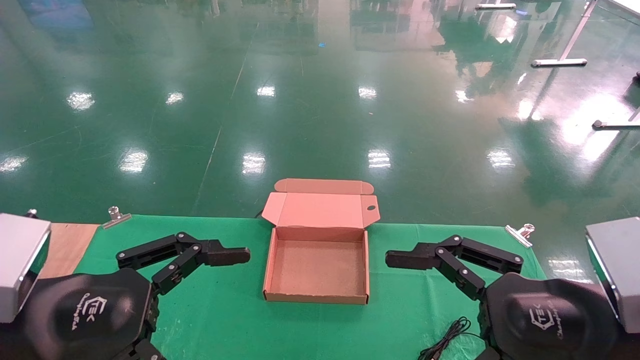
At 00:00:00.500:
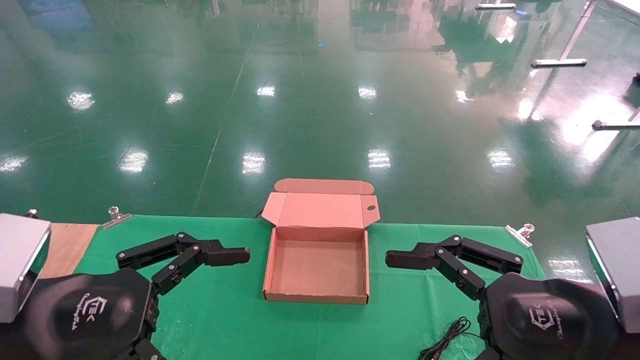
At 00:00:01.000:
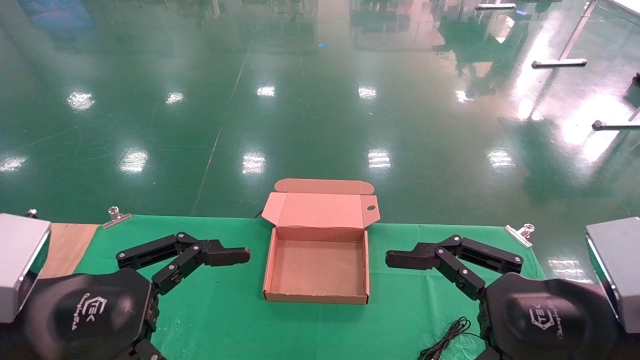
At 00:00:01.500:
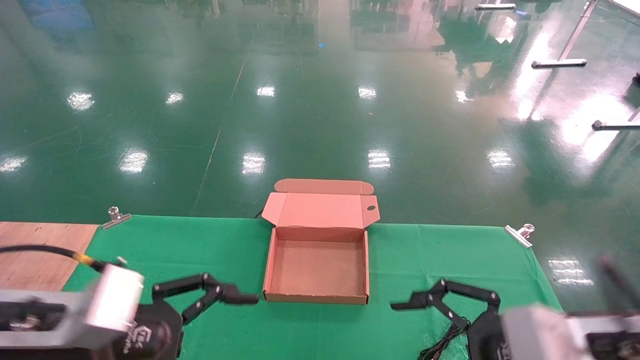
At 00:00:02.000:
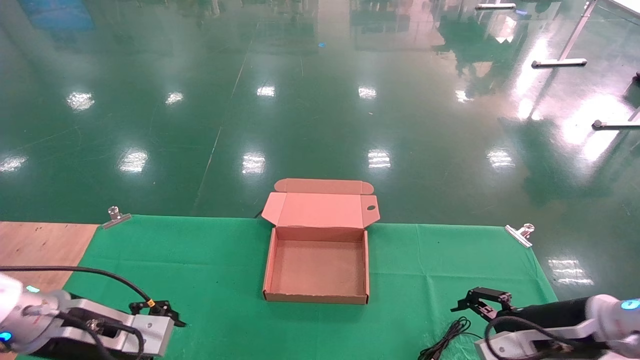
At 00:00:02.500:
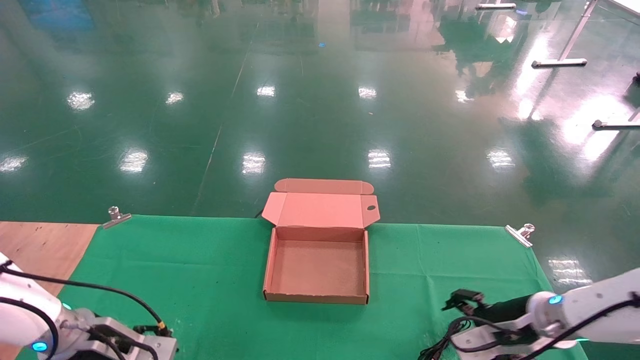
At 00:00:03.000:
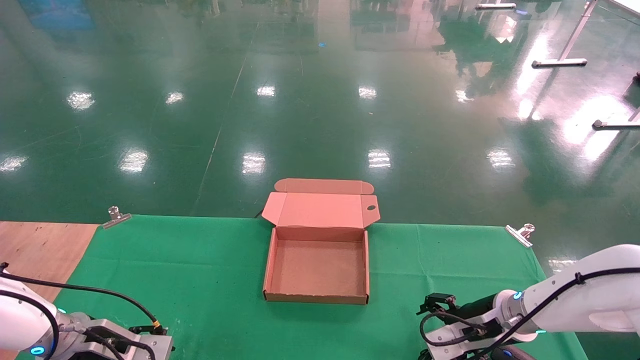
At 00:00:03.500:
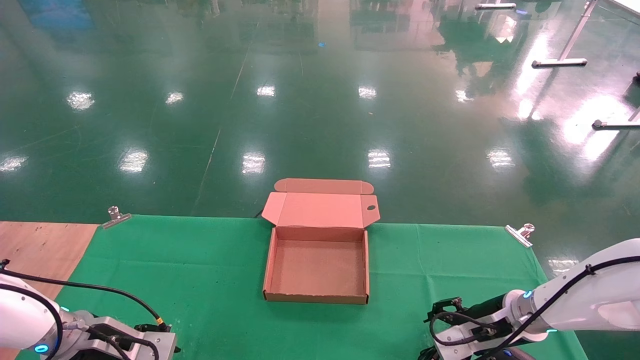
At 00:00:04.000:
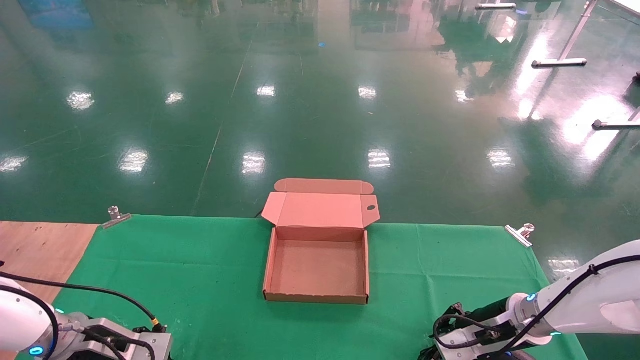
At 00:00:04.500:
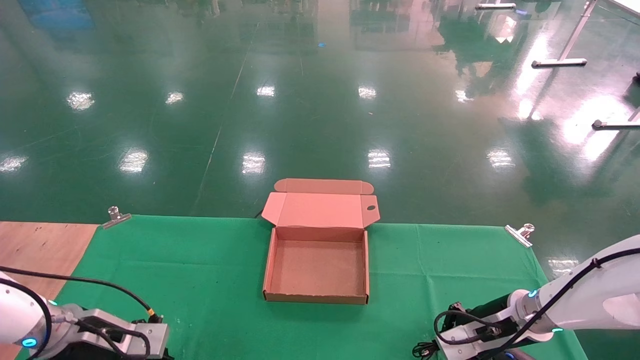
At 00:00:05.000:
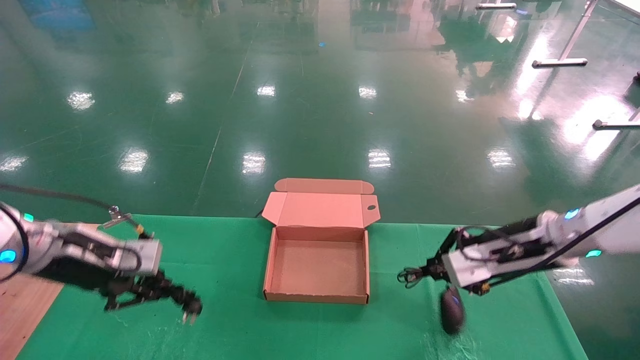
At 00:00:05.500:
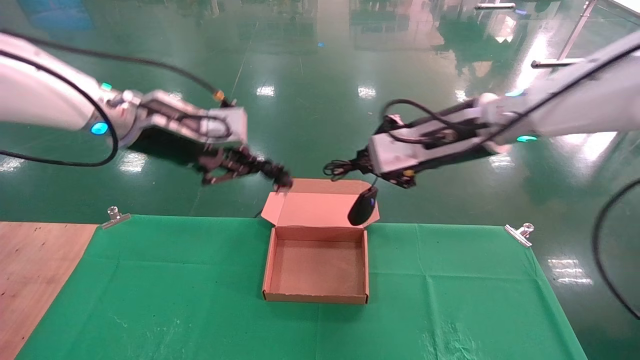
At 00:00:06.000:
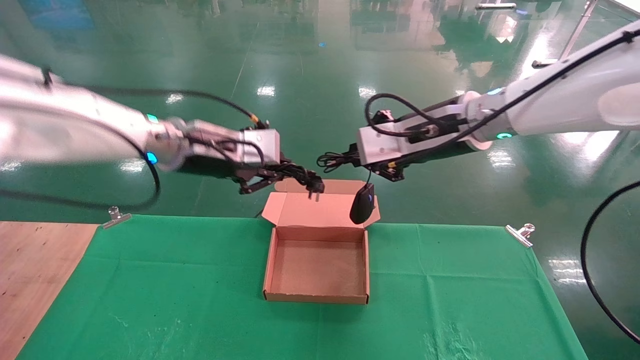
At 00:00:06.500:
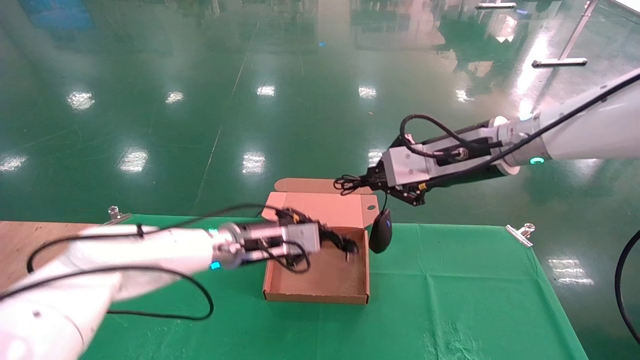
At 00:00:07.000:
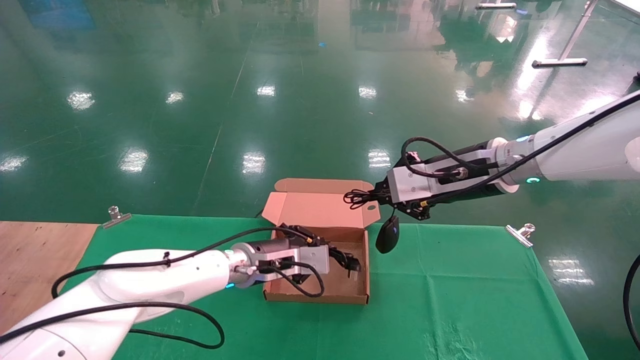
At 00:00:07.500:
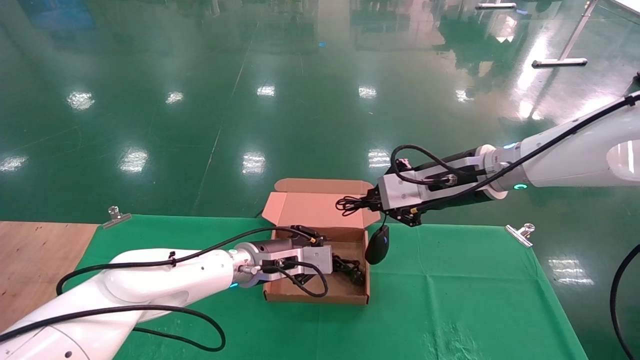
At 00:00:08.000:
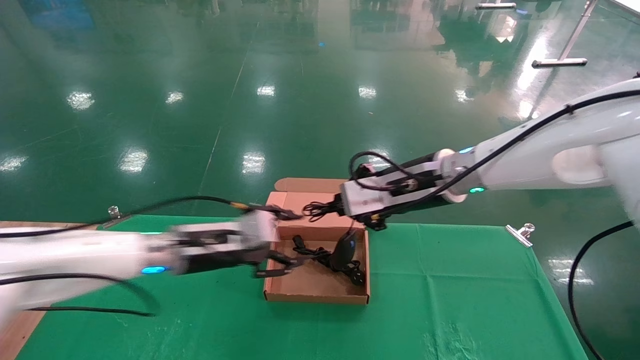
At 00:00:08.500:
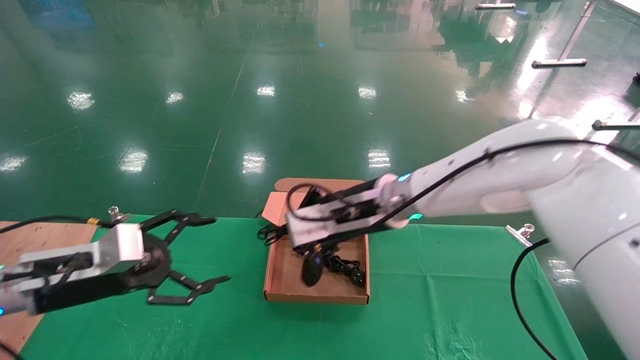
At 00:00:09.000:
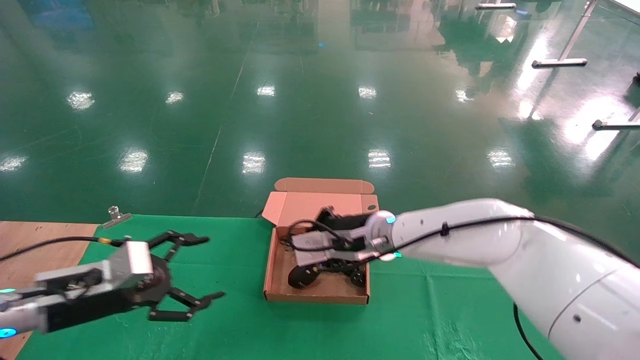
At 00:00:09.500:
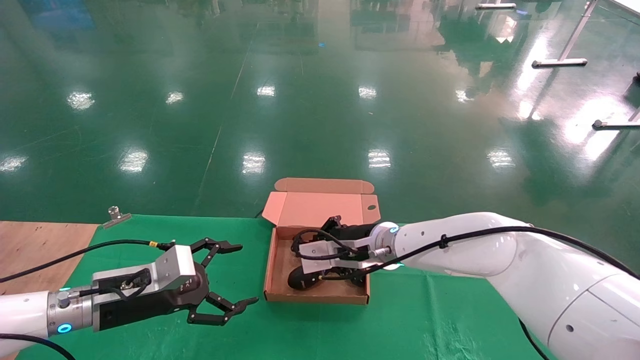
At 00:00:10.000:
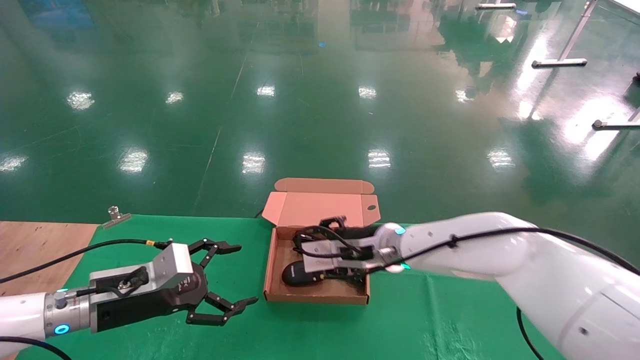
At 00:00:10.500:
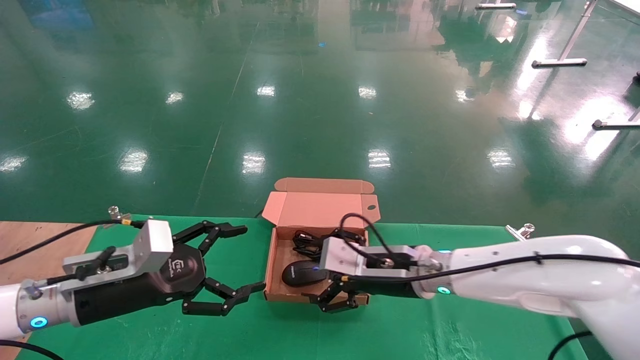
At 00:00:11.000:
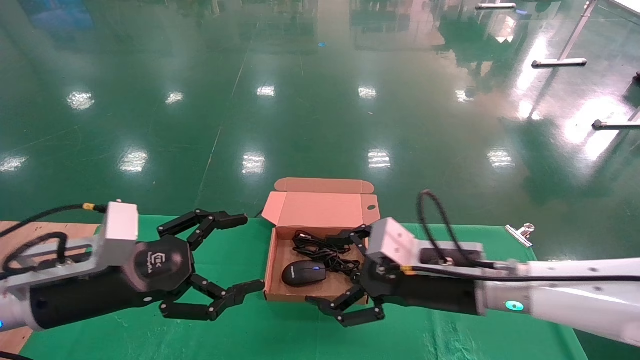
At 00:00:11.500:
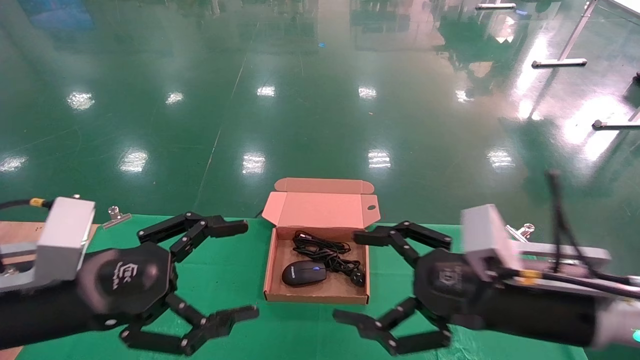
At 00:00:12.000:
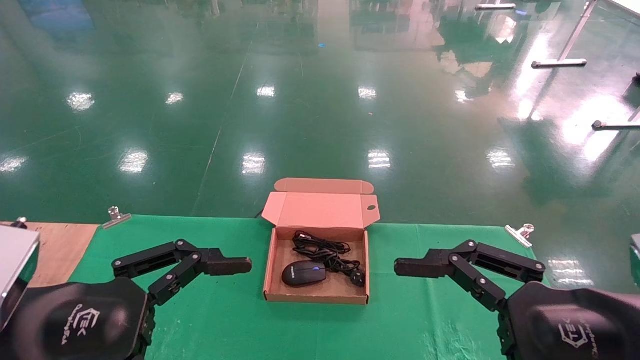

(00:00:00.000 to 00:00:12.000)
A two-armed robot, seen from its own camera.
Step, 00:00:02.000 - 00:00:05.000: Grab and lift both the mouse and power cord from the accessory packaging area at the same time.
Step, 00:00:05.500 - 00:00:09.500: Place the mouse and power cord into the box.
00:00:00.000 - 00:00:02.000: The grippers both shift forward and downward by approximately 15 cm.
00:00:02.000 - 00:00:04.000: The right gripper is displaced forward and downward by approximately 15 cm, and closes up. The left gripper shifts roughly 10 cm downward and forward, and closes.
00:00:04.000 - 00:00:06.000: The left gripper moves upward and to the right, about 30 cm, and closes. The right gripper heads upward, covering roughly 30 cm, and closes.
00:00:06.000 - 00:00:08.000: The right gripper shifts some 5 cm downward. Meanwhile the left gripper heads downward, covering some 15 cm, and opens its fingers.
00:00:08.000 - 00:00:10.000: The right gripper heads downward and to the left, covering some 15 cm, and opens up. Meanwhile the left gripper shifts roughly 10 cm to the left, and opens.
00:00:10.000 - 00:00:12.000: The left gripper moves backward and upward, approximately 20 cm. The right gripper heads backward and to the right, covering about 30 cm, and opens its fingers.
